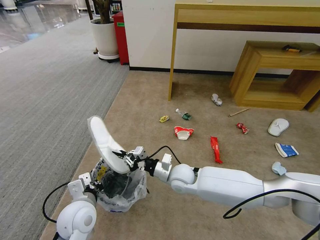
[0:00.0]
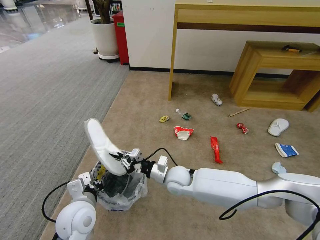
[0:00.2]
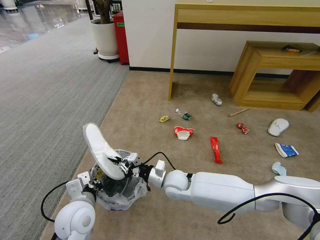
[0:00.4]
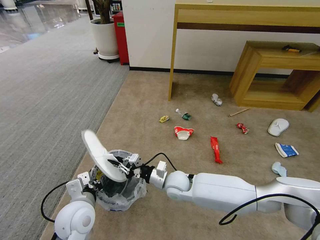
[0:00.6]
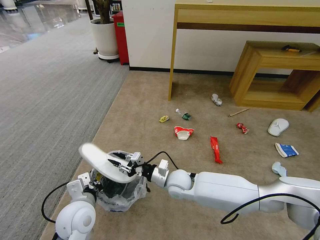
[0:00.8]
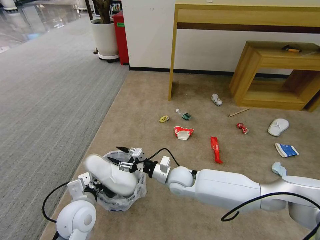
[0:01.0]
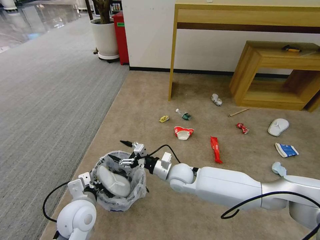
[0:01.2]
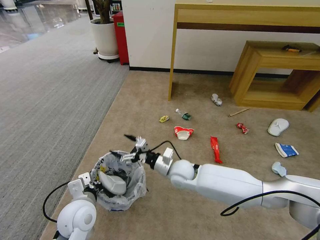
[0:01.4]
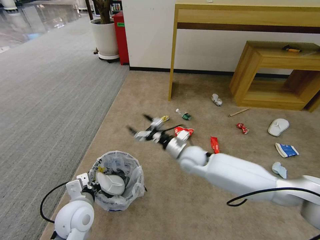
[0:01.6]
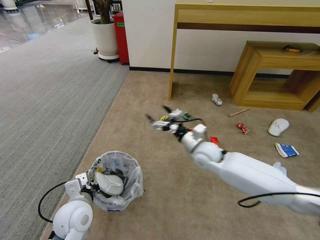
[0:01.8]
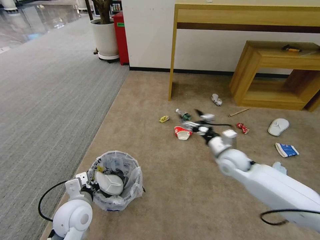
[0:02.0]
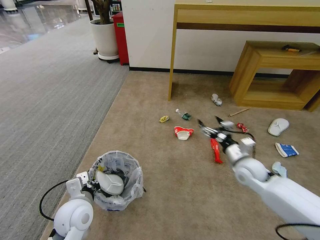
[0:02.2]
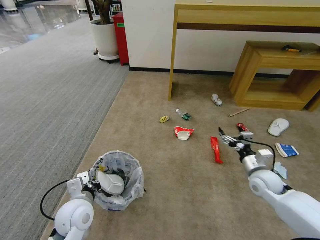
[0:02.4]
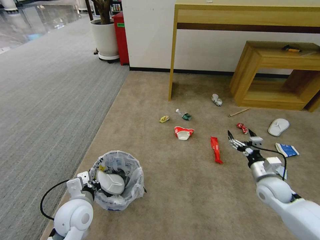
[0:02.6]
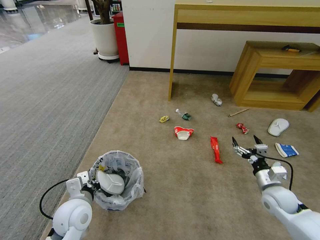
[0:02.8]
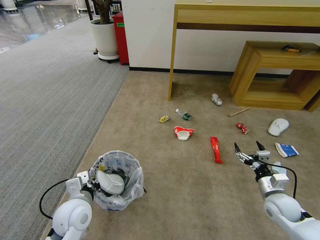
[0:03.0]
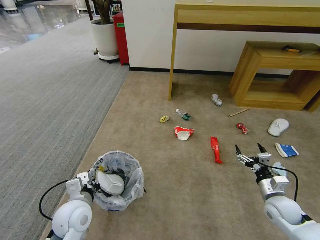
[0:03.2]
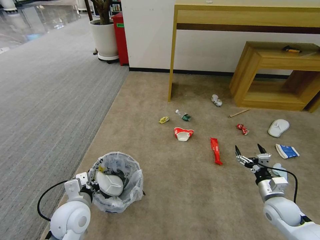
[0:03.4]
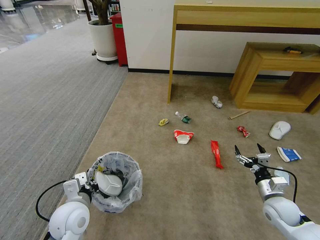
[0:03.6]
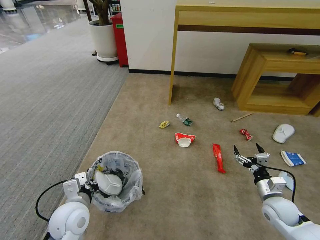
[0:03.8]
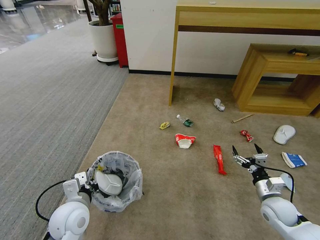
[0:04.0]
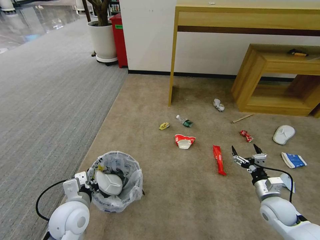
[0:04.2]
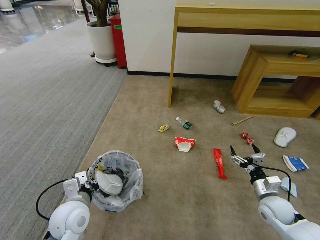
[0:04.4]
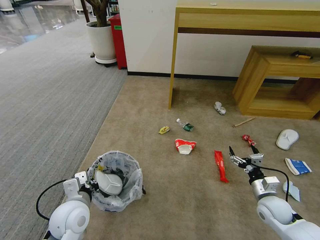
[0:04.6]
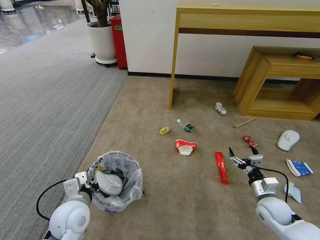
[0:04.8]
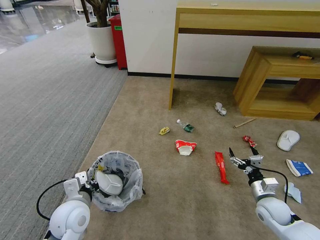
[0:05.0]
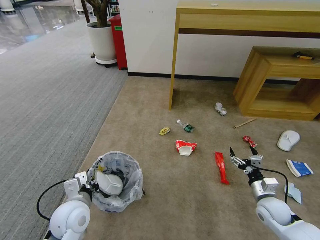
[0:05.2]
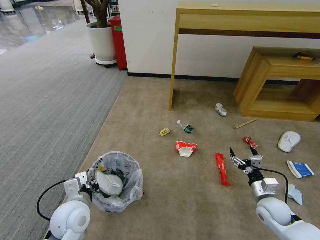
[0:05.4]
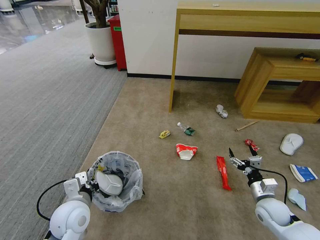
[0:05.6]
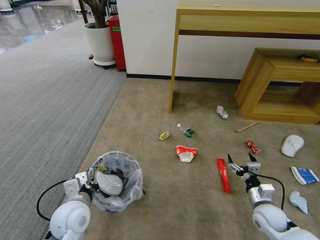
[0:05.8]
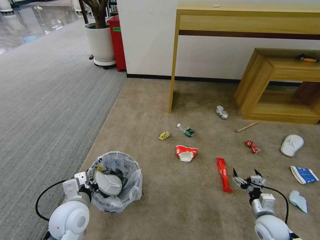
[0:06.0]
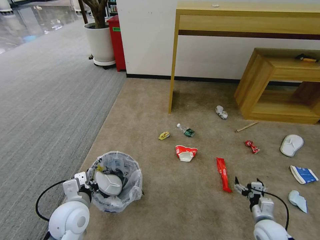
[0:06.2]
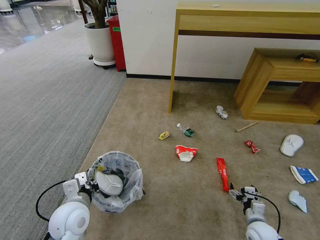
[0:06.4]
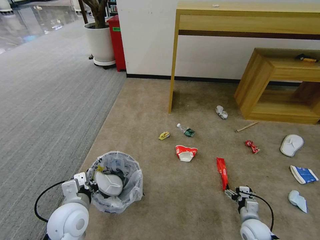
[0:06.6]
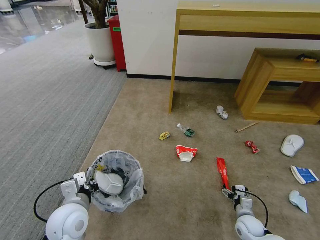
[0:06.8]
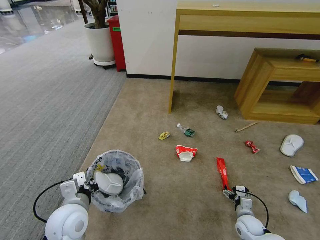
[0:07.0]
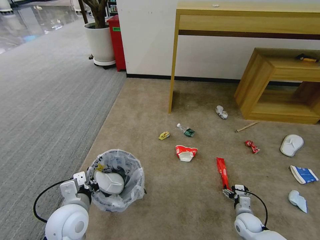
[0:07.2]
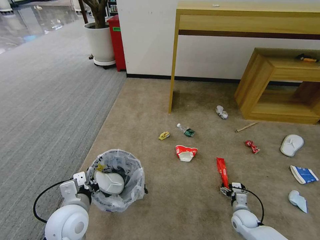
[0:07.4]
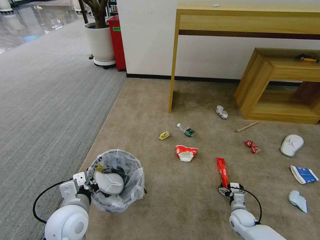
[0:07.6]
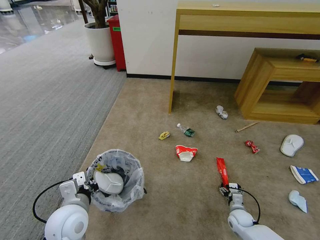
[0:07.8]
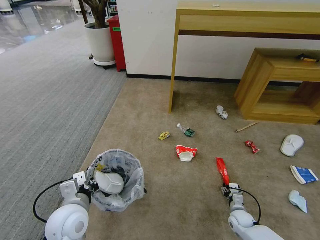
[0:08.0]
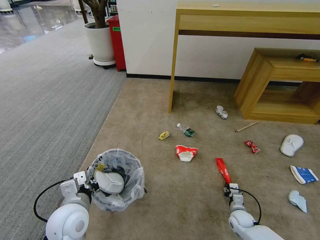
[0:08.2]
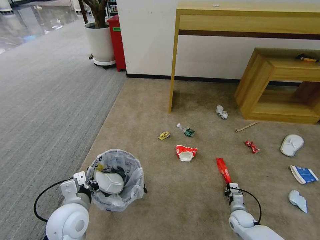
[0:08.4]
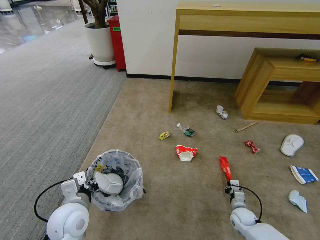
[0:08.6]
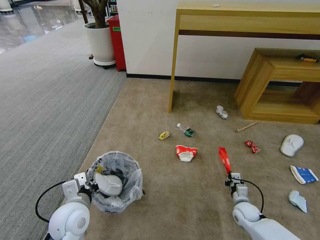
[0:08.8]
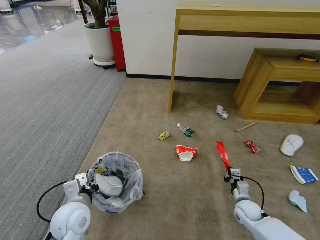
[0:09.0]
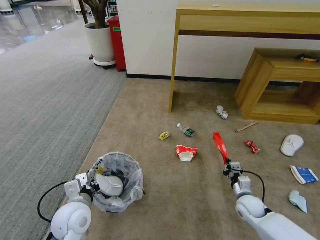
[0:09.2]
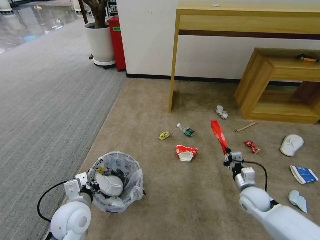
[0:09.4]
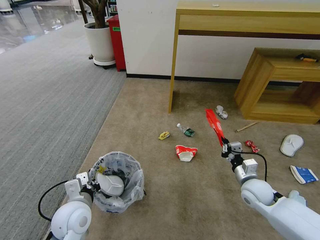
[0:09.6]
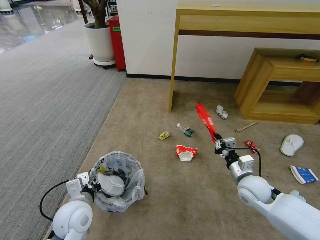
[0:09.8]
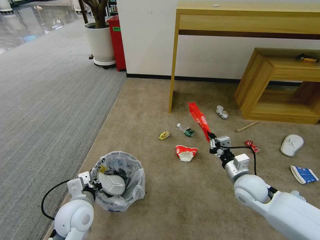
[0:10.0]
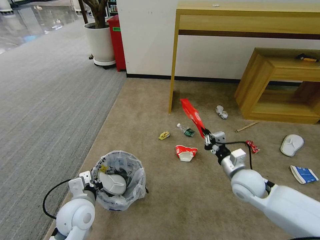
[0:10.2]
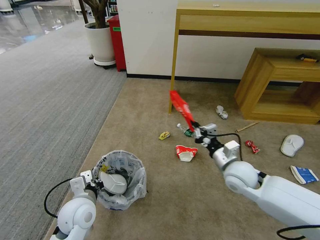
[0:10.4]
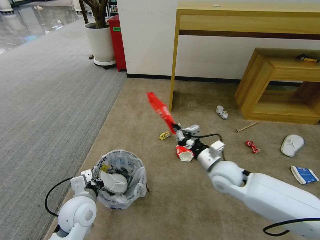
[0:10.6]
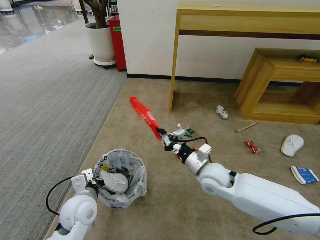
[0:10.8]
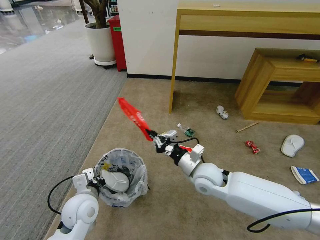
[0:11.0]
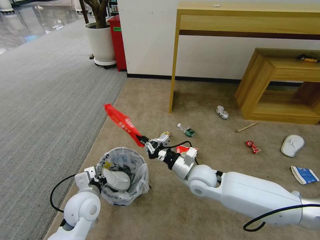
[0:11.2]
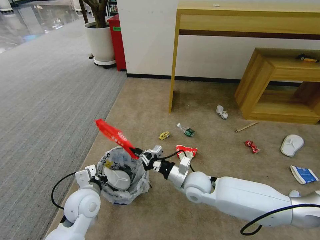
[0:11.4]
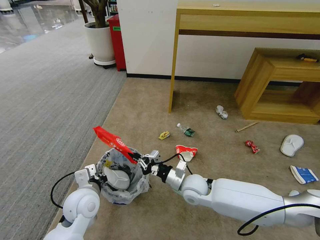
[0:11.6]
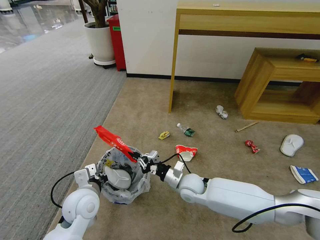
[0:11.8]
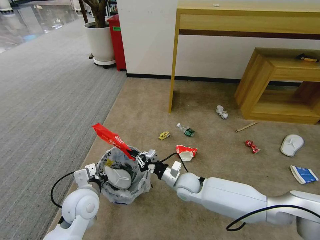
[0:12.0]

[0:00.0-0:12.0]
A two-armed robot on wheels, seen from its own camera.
Task of the whole recording: Pick up the trash bin and place the garbage on the floor into it.
0:00.0 to 0:01.6: The right gripper goes approximately 5 cm forward, and opens its fingers.
0:01.6 to 0:03.0: The right gripper heads to the right and backward, covering about 35 cm.
0:03.0 to 0:04.4: The grippers move only a little.
0:04.4 to 0:06.0: The right gripper is displaced downward by some 5 cm.
0:06.0 to 0:07.6: The right gripper heads downward and forward, covering about 10 cm.
0:07.6 to 0:09.0: The right gripper is displaced upward by roughly 5 cm, and closes its fingers.
0:09.0 to 0:10.4: The right gripper is displaced upward and to the left by about 25 cm.
0:10.4 to 0:12.0: The right gripper heads to the left and downward, covering approximately 20 cm.

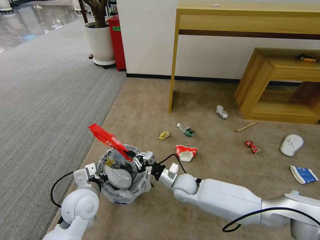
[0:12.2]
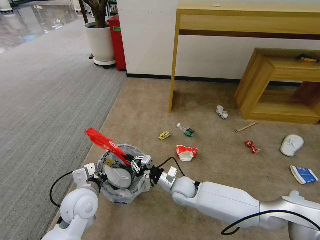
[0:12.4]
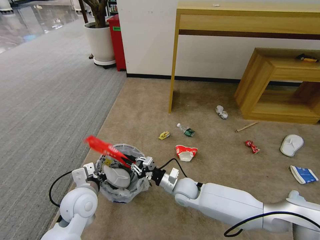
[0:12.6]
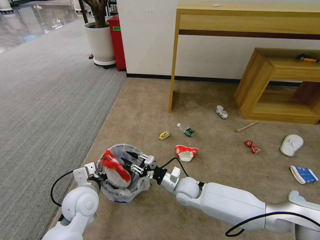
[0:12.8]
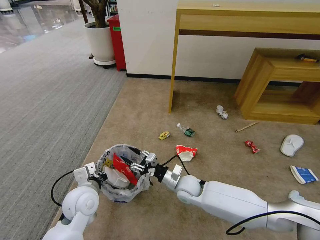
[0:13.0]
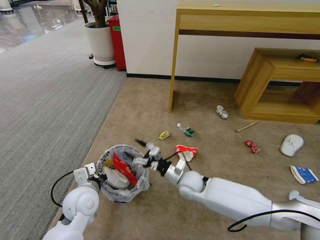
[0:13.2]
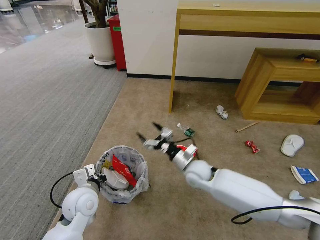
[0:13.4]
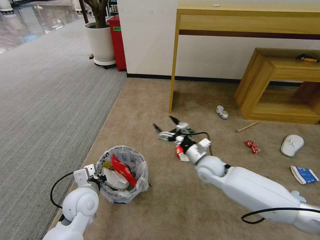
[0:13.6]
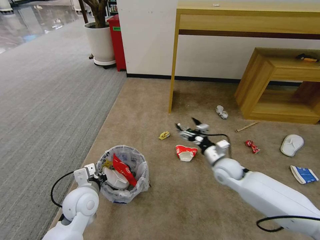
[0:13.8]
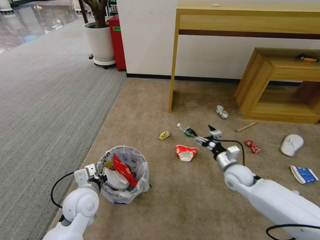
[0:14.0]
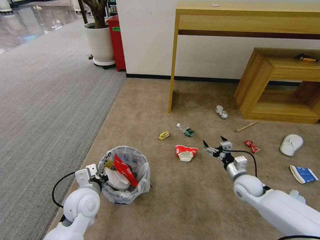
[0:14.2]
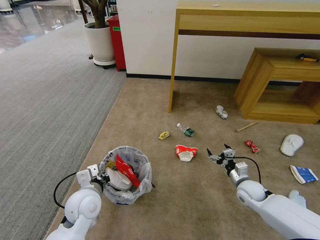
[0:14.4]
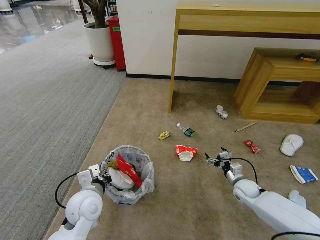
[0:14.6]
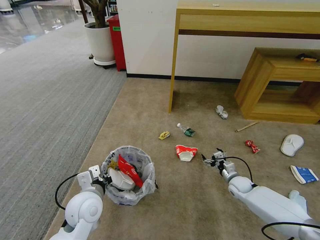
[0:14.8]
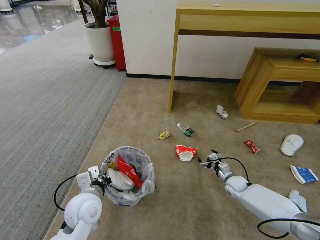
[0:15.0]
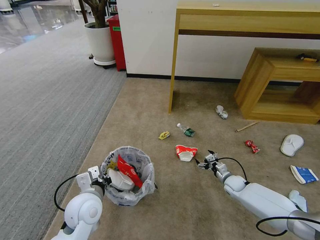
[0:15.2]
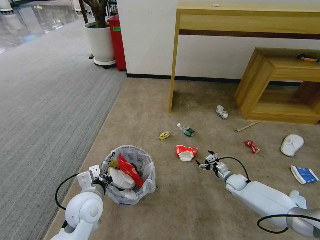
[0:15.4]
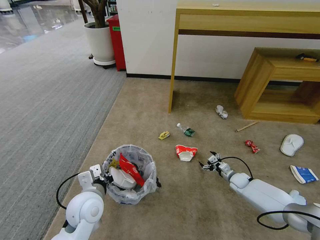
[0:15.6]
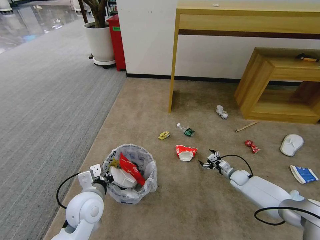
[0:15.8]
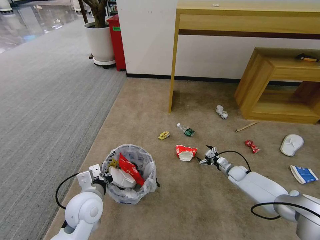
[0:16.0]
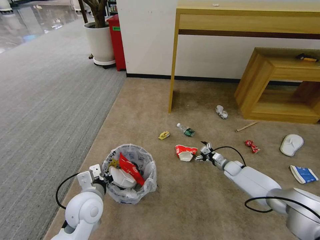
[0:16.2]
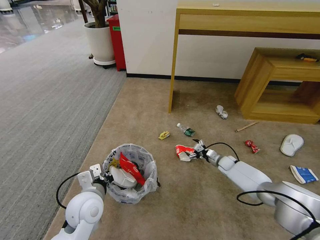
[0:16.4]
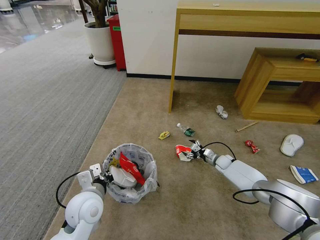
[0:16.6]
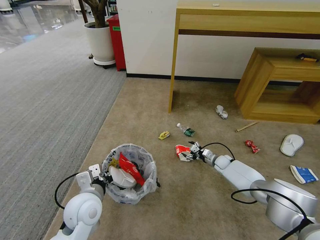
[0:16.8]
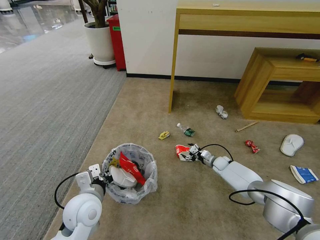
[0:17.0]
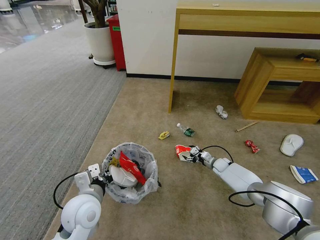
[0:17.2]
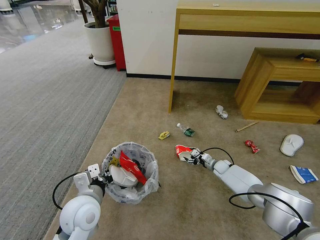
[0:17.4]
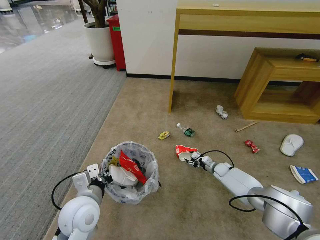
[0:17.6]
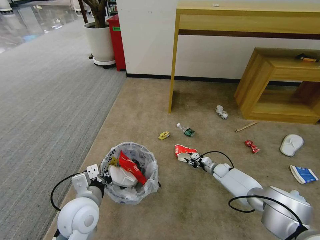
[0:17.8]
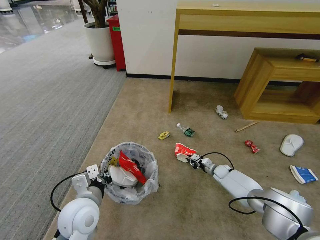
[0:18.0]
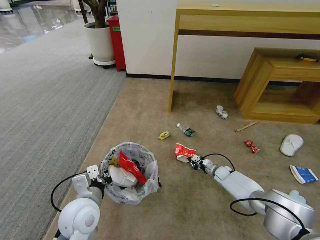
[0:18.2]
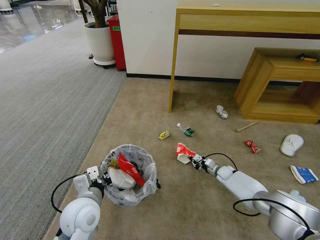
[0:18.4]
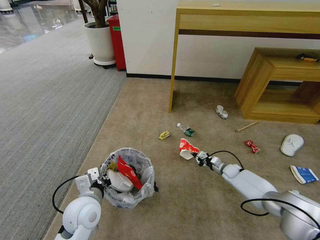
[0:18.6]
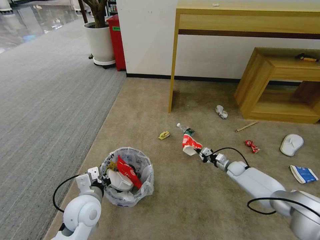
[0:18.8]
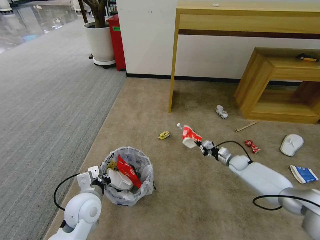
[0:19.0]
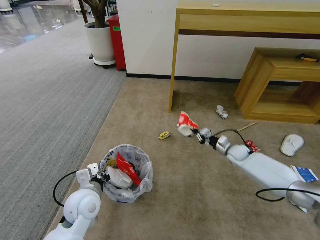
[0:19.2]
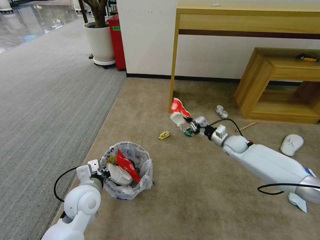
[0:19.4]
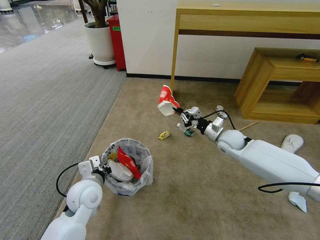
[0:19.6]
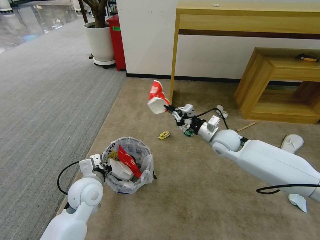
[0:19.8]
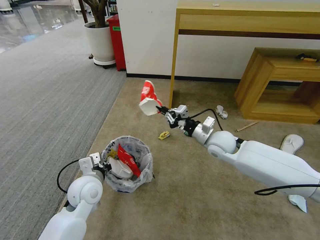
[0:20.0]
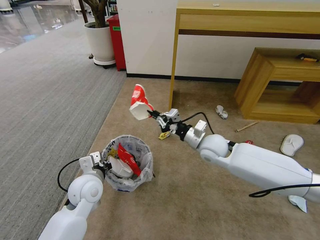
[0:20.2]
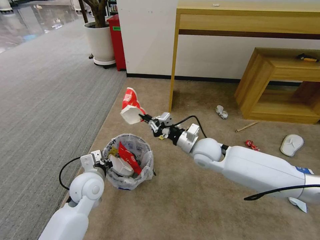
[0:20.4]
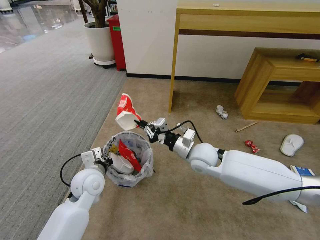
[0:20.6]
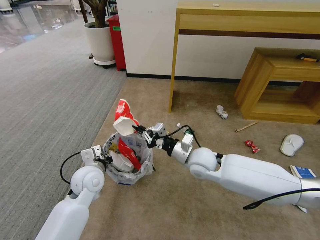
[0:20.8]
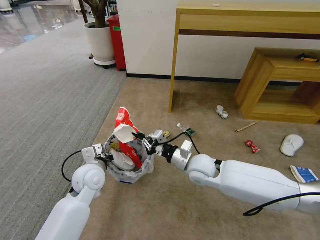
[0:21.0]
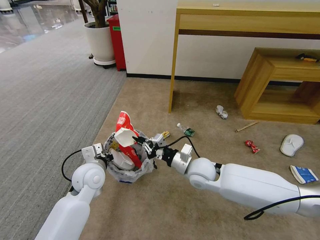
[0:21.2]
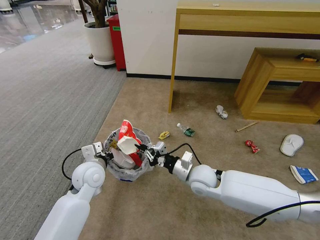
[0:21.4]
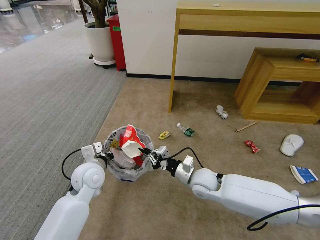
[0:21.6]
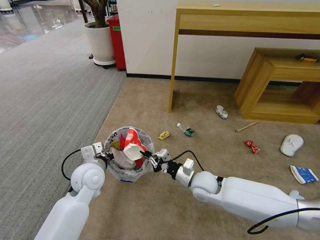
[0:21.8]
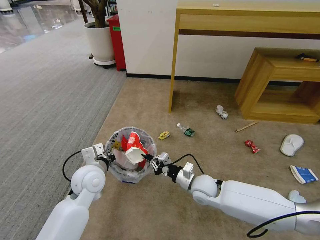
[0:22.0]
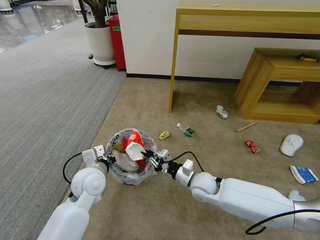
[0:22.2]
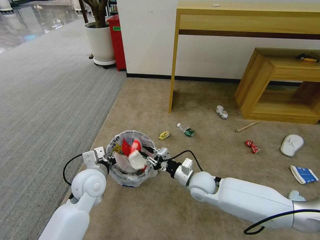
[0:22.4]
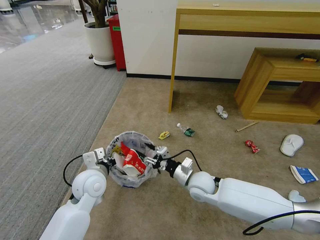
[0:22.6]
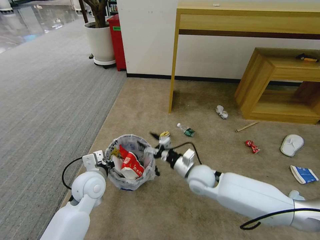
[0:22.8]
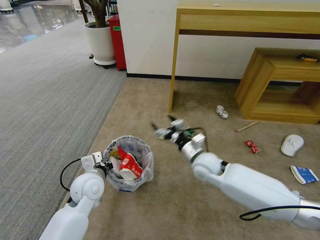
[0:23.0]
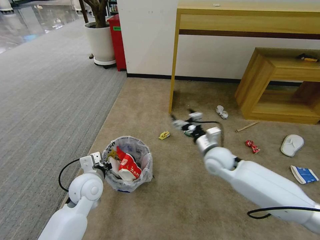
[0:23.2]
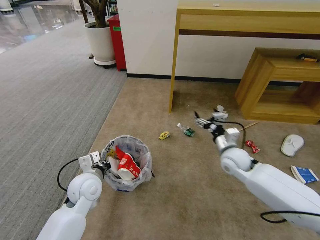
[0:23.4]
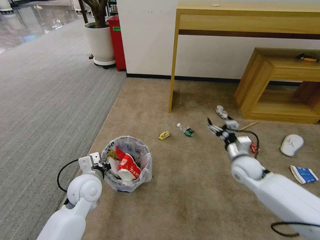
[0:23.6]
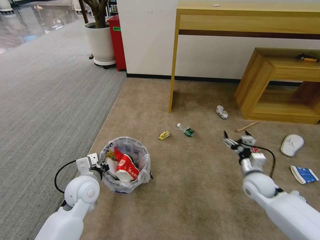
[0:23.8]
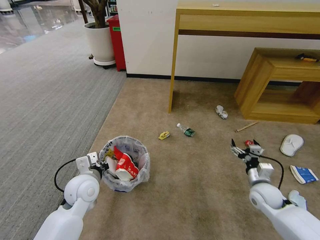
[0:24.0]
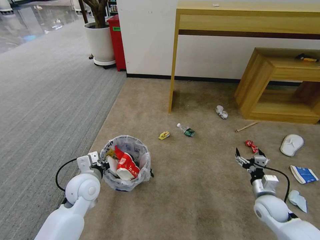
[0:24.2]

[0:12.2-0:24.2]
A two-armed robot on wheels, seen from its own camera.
Task of the whole recording: Pick up the trash bin and place the garbage on the floor into it.
0:12.2 to 0:13.8: The right gripper is displaced to the right and upward by roughly 15 cm, and opens up.
0:13.8 to 0:15.2: The right gripper is displaced downward and to the right by some 20 cm.
0:15.2 to 0:16.6: The right gripper heads forward, covering some 10 cm.
0:16.6 to 0:18.2: The right gripper moves about 5 cm, and closes.
0:18.2 to 0:19.8: The right gripper moves upward, some 30 cm; the left gripper is displaced forward by about 5 cm.
0:19.8 to 0:21.2: The right gripper heads to the left and backward, covering roughly 15 cm.
0:21.2 to 0:22.6: The right gripper shifts some 5 cm downward, and opens.
0:22.6 to 0:24.2: The right gripper travels to the right by approximately 25 cm, and opens.
